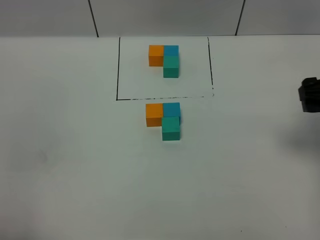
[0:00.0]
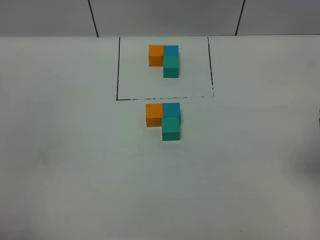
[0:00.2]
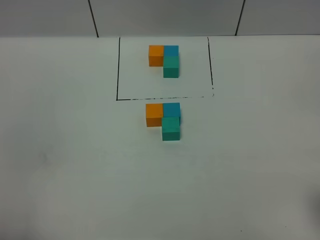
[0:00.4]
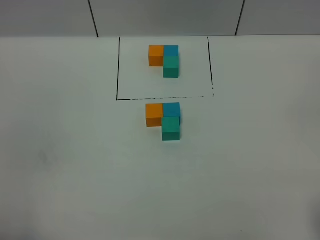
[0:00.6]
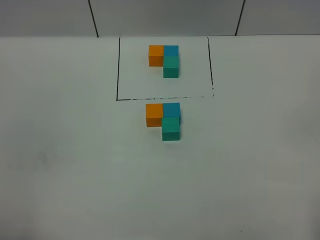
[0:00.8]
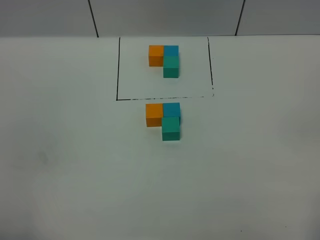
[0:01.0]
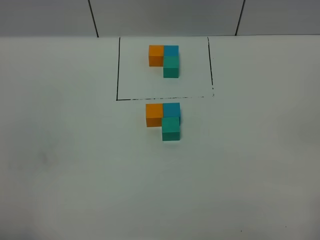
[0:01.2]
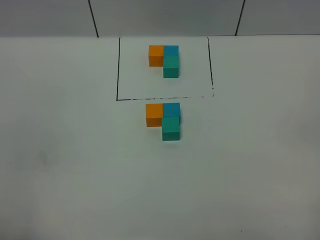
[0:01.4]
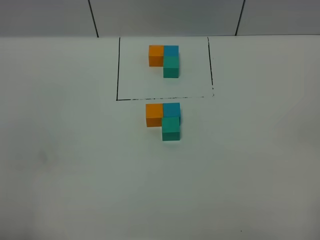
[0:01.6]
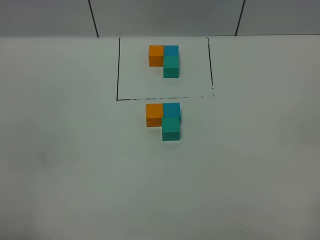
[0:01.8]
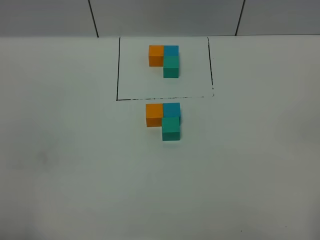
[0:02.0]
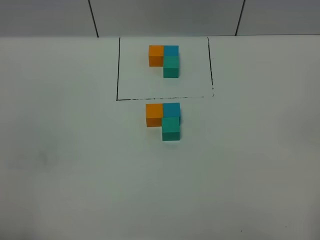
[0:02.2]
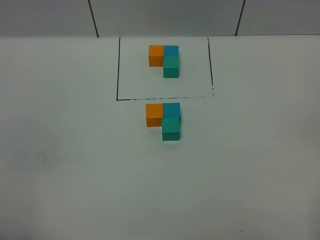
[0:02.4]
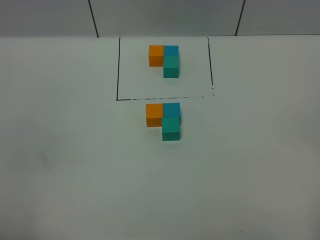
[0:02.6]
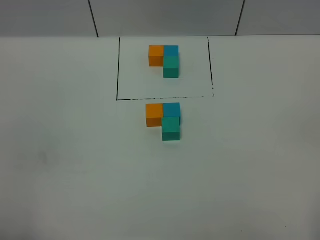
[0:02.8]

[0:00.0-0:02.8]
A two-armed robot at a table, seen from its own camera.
Task of the whole recording: According to the building block template in front, assemble the scattered blocks together.
0.0 to 1.4 s: The right gripper travels backward by about 25 cm.

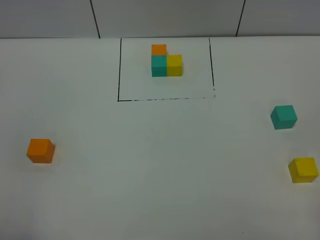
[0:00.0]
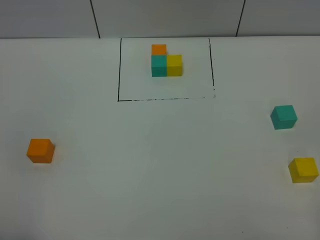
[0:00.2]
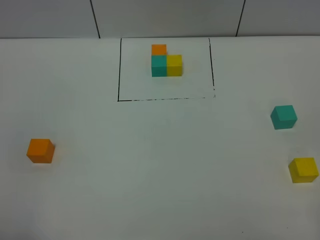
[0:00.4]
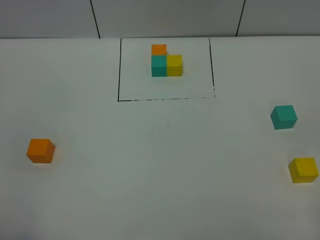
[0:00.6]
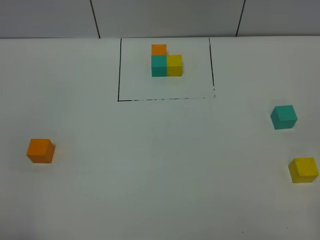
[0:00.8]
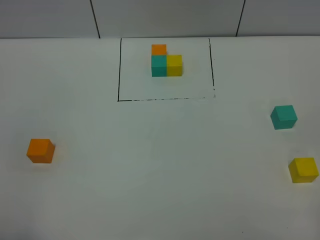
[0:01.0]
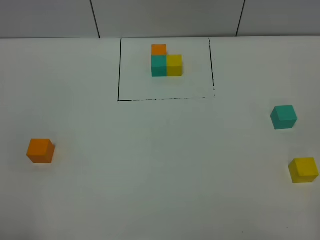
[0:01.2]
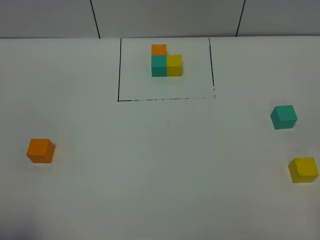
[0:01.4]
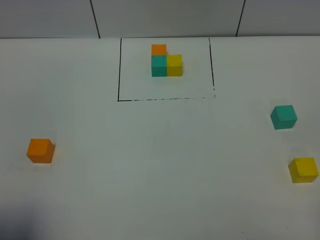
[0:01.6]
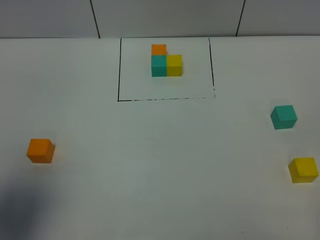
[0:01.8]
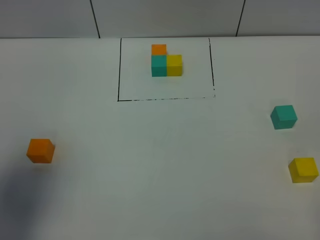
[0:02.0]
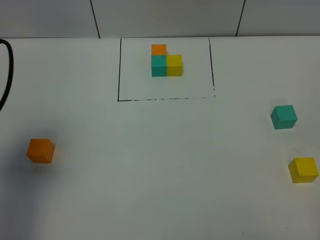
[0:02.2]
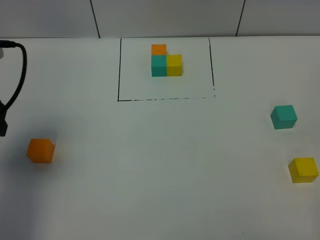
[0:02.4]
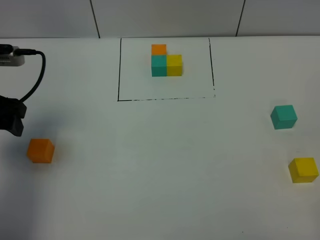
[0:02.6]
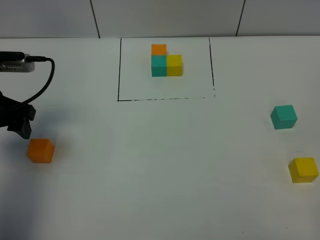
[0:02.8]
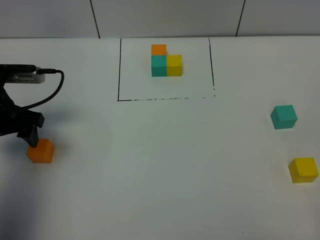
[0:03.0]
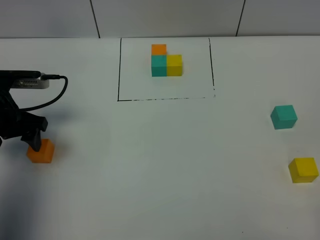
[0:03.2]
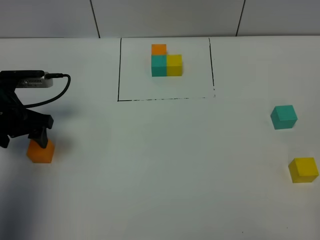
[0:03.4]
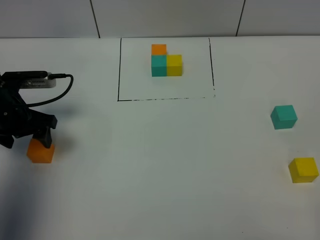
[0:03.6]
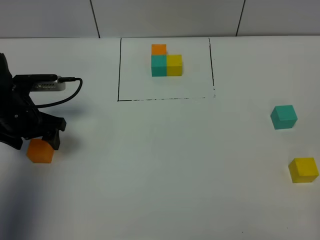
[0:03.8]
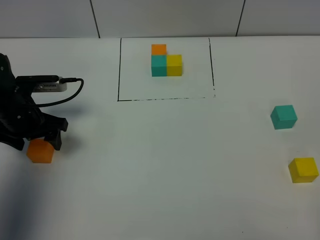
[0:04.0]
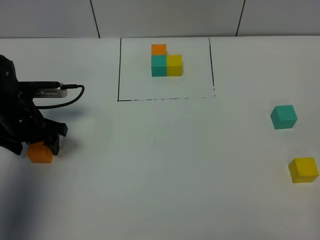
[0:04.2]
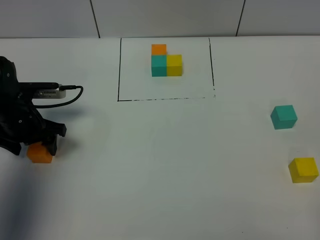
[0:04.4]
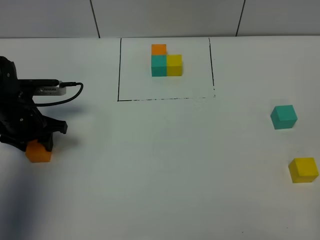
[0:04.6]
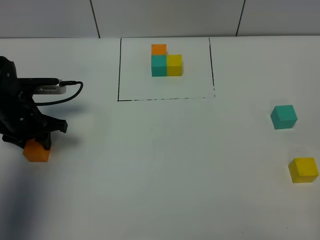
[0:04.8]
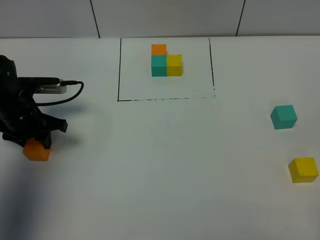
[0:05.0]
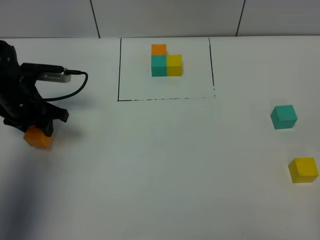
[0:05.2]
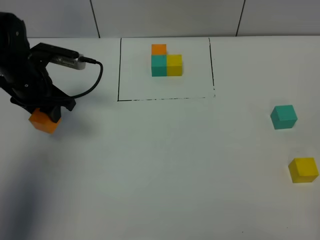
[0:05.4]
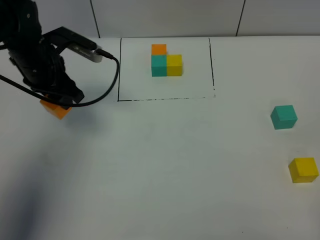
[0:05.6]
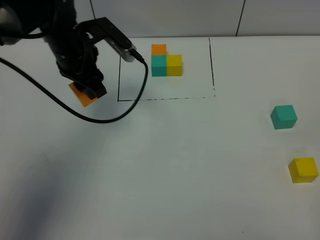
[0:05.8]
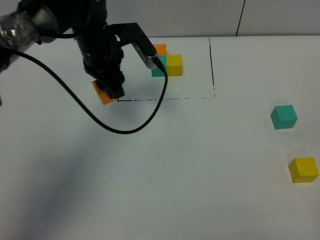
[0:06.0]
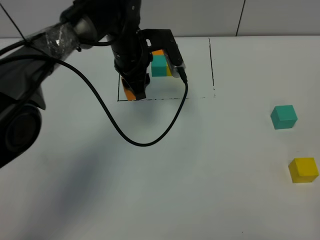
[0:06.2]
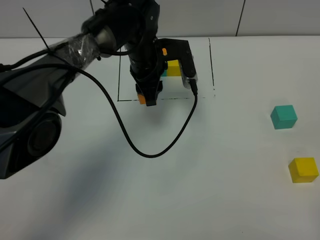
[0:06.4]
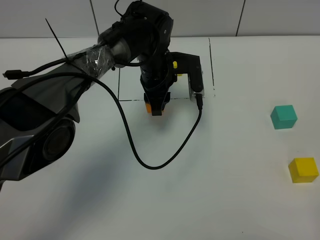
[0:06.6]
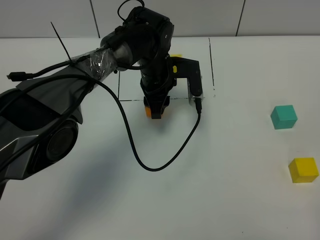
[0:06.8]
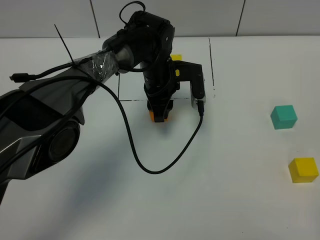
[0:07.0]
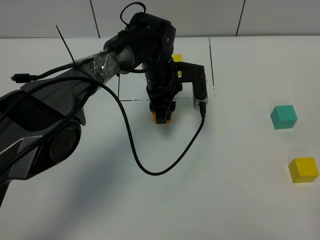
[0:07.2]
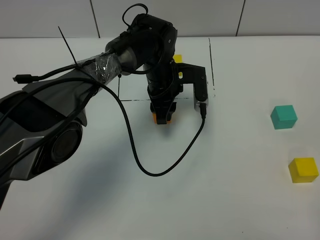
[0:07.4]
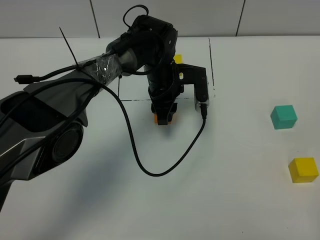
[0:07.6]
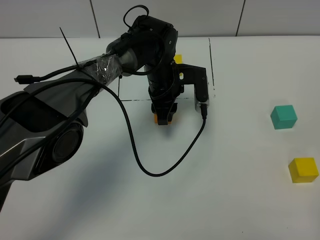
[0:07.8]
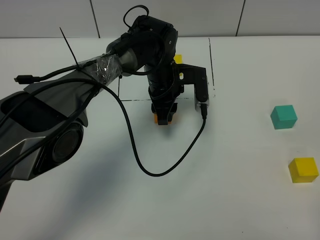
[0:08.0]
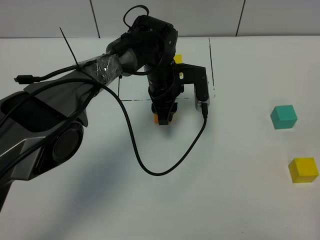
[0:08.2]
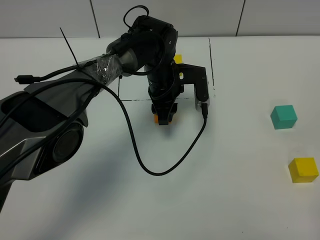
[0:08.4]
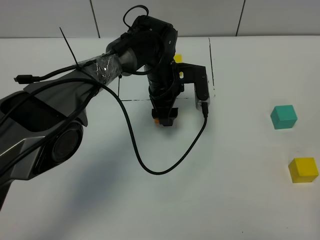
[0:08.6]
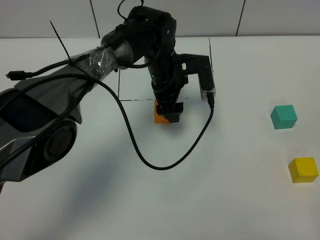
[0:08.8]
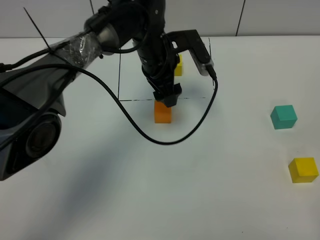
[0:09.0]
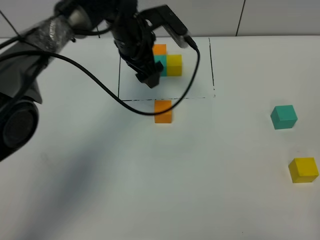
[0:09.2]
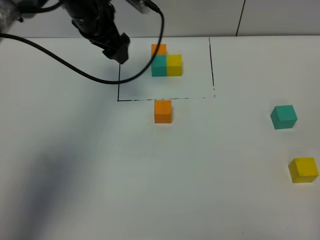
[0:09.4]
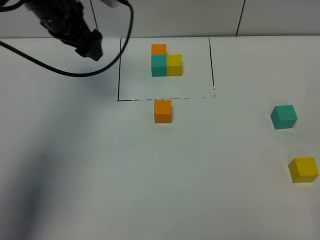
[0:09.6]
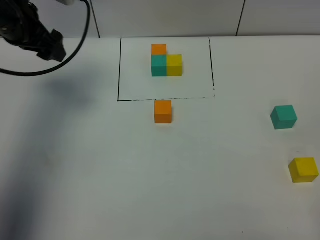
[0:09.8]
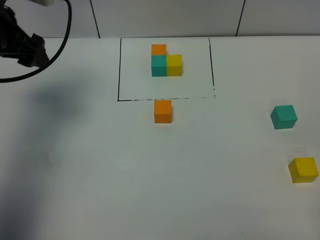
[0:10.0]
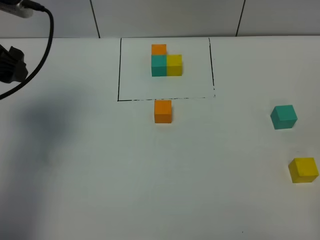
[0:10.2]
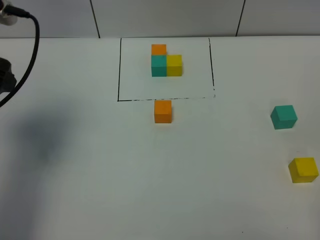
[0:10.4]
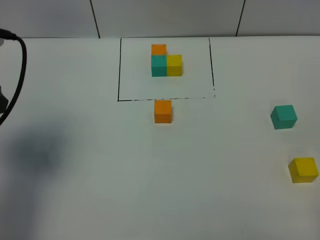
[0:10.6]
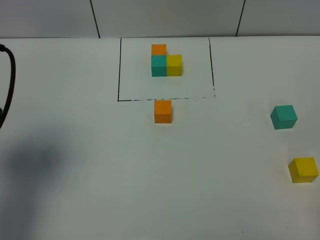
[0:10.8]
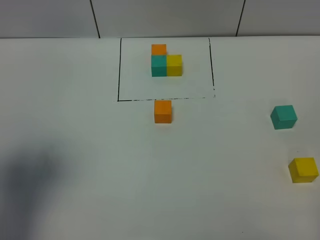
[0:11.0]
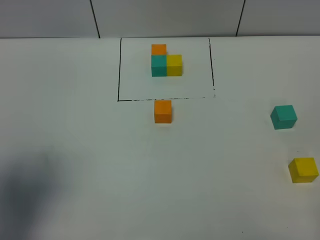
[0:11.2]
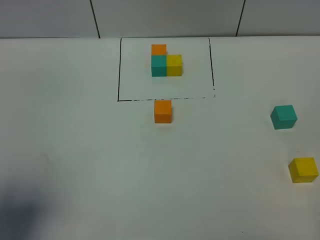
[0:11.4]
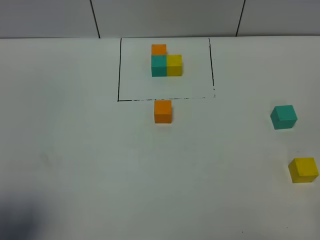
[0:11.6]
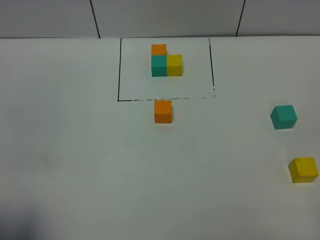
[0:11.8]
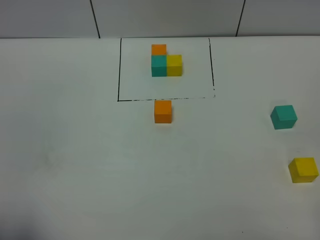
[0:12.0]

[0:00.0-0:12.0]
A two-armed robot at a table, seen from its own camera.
Task of the whole recording: According to the building block template in front, assemble the scattered blocks together.
Step, 0.0 to 8.6 s: Put the orange build block in the center of the table.
0.0 to 1.6 s: The left gripper shifts about 5 cm forward.
1.6 to 3.0 s: The left gripper is displaced forward and downward by approximately 30 cm.
3.0 to 4.4 s: The left gripper is displaced downward by approximately 5 cm.
4.4 to 6.0 s: The left gripper moves to the right, upward and forward, roughly 20 cm, and closes its fingers.
6.0 to 7.6 s: The left gripper heads to the right and downward, covering roughly 15 cm.
7.6 to 9.0 s: The left gripper shifts about 5 cm upward, and opens.
9.0 to 10.4 s: The left gripper moves to the left, backward and upward, approximately 35 cm.
10.4 to 12.0 s: The left gripper shifts about 25 cm backward.

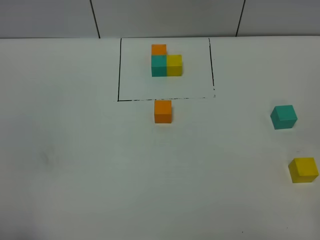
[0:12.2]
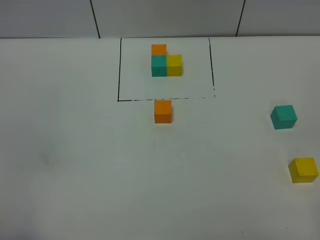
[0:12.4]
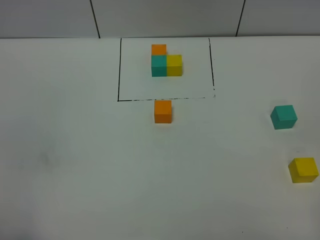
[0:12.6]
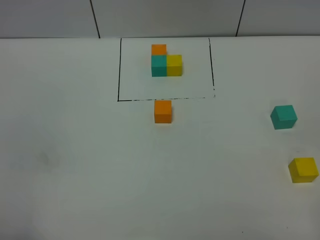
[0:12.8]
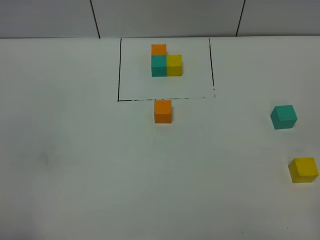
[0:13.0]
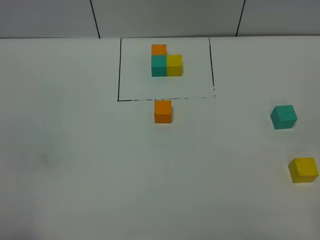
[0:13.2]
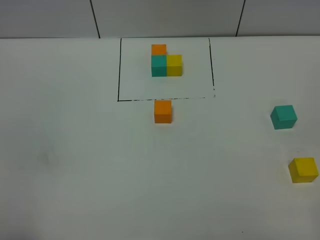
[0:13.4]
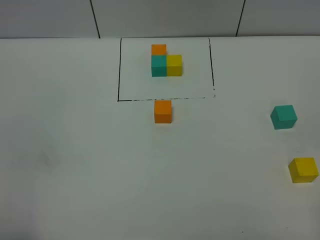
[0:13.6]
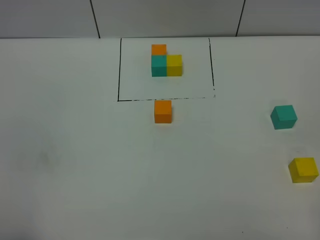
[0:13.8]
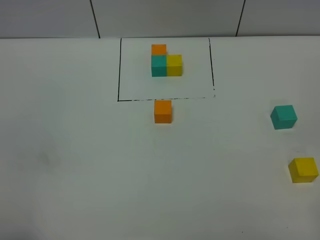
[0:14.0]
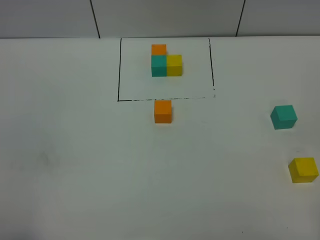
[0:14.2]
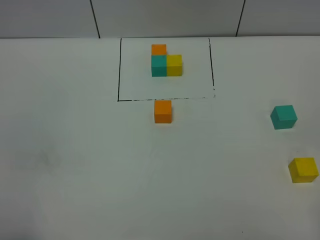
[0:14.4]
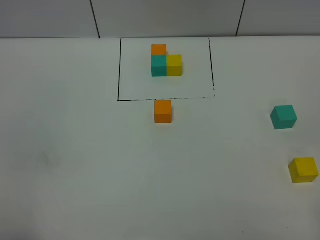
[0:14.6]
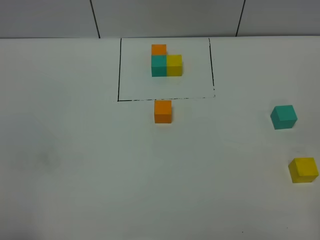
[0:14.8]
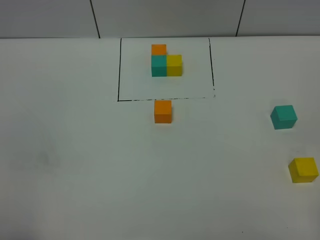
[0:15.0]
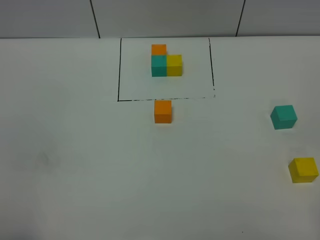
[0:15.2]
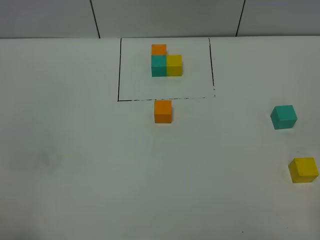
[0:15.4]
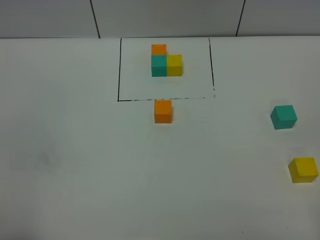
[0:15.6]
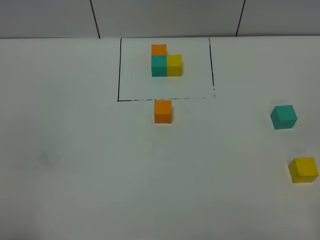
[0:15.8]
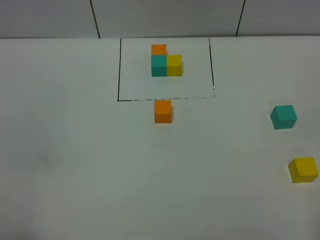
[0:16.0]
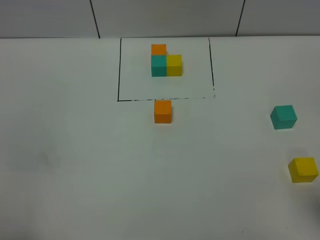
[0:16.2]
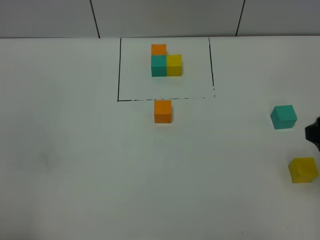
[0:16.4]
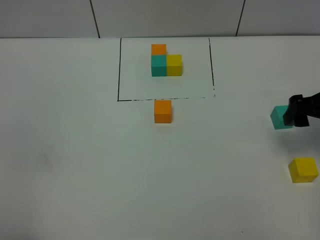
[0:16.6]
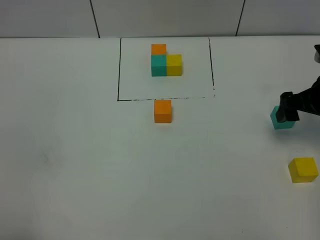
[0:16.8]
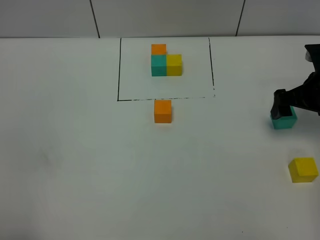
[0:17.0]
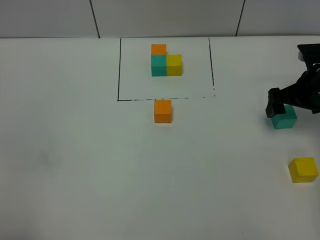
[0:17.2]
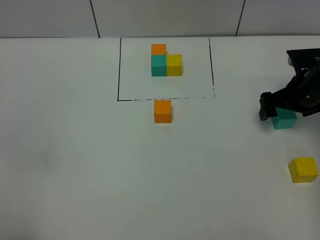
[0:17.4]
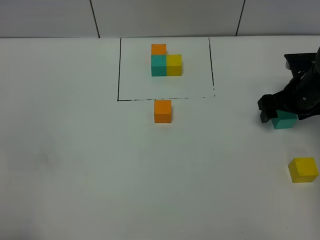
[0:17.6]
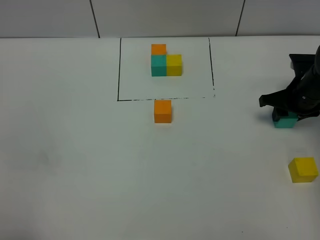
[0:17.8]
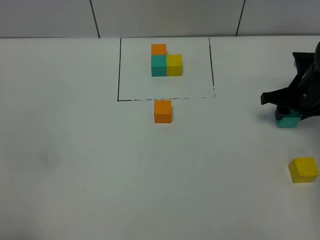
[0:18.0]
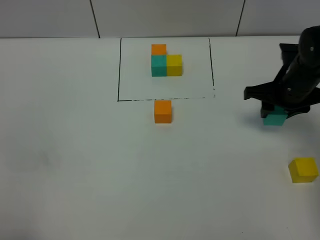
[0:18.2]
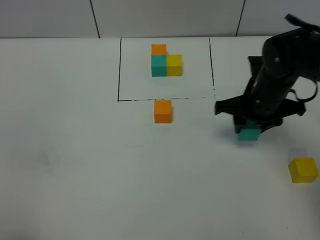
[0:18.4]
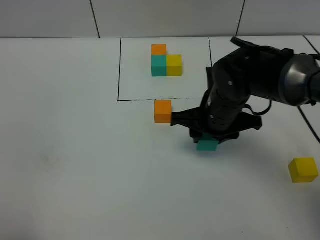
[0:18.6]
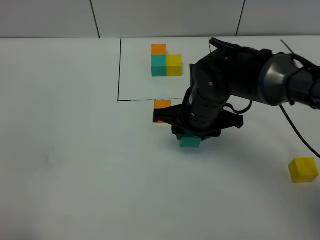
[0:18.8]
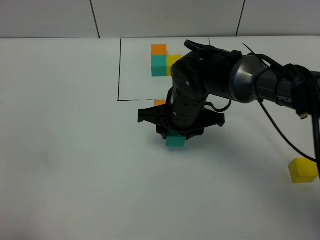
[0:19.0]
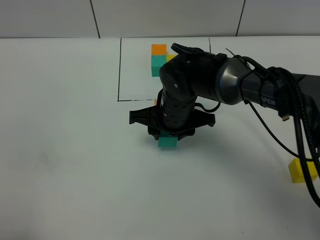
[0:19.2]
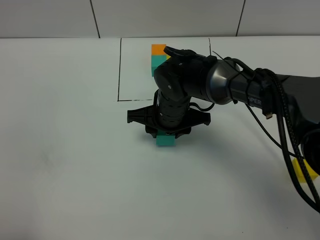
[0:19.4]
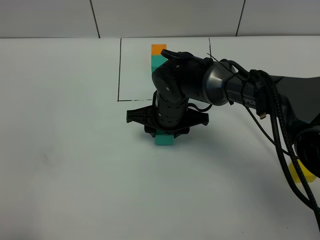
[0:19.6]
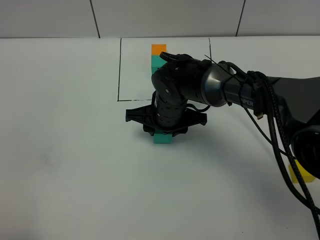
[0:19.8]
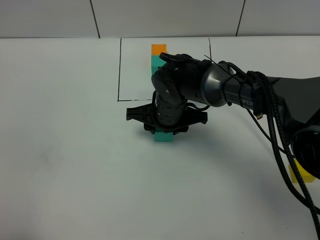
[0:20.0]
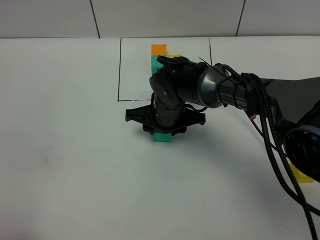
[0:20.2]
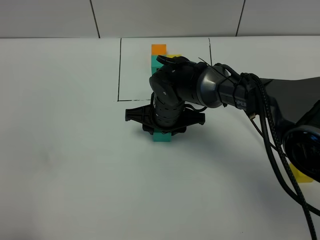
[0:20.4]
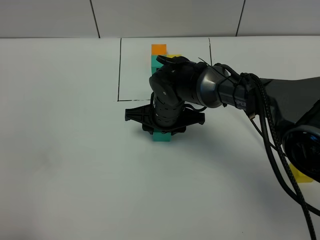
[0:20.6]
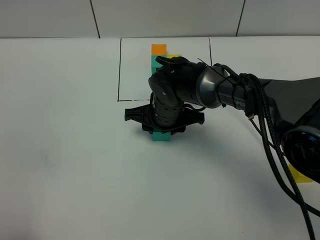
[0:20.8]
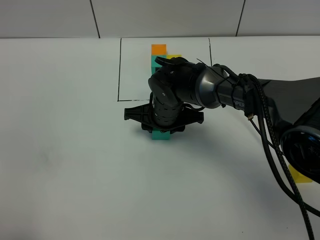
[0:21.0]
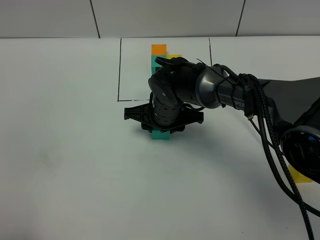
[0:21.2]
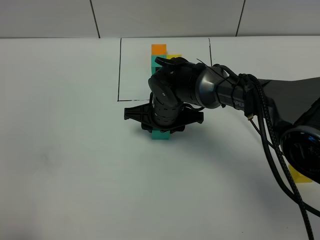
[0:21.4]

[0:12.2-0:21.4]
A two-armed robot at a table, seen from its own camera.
Task of the whole recording: According to the building block template in front, assemble the scattered blocks together.
12.2 to 15.2 s: The two grippers keep their place.
15.2 to 16.8 s: The right gripper heads forward, covering some 30 cm, and opens.
16.8 to 18.4 s: The right gripper goes about 15 cm to the left, and closes up.
18.4 to 19.8 s: The right gripper travels to the left by roughly 15 cm.
19.8 to 21.4 s: The grippers move only a little.
